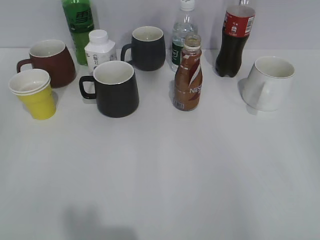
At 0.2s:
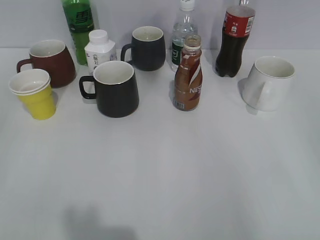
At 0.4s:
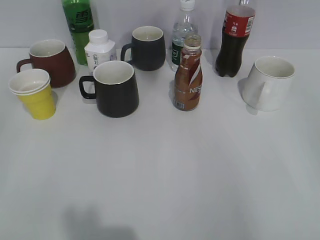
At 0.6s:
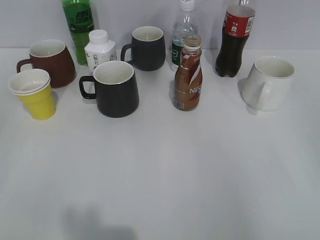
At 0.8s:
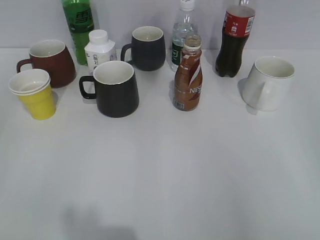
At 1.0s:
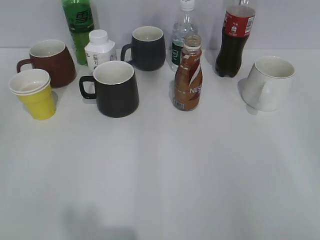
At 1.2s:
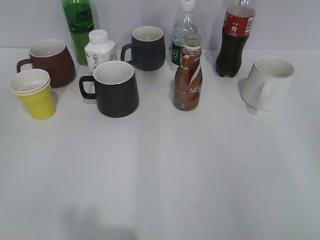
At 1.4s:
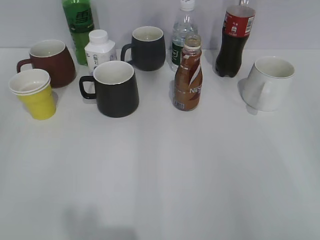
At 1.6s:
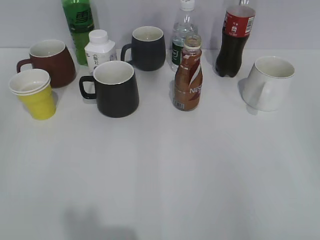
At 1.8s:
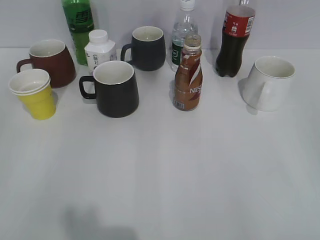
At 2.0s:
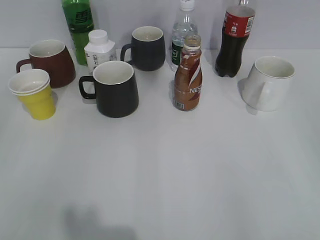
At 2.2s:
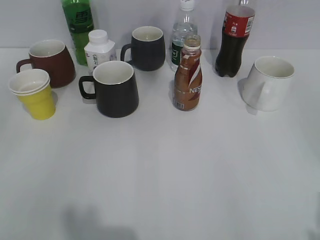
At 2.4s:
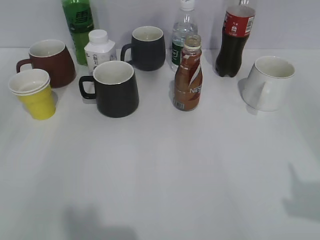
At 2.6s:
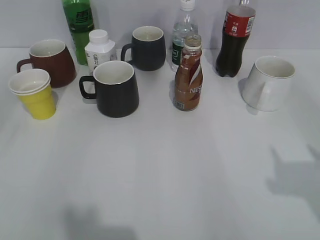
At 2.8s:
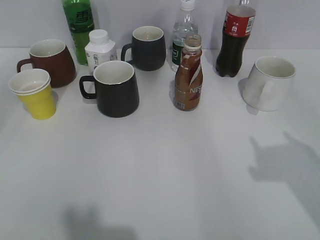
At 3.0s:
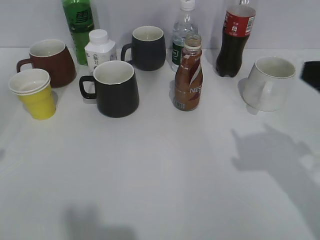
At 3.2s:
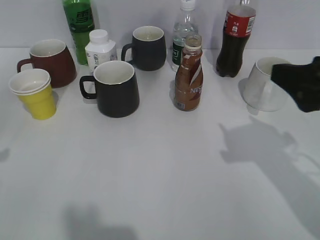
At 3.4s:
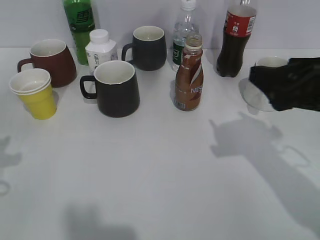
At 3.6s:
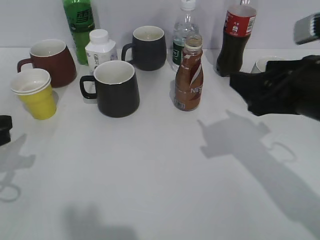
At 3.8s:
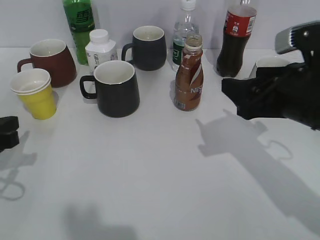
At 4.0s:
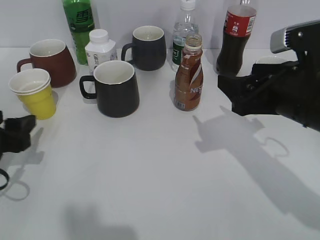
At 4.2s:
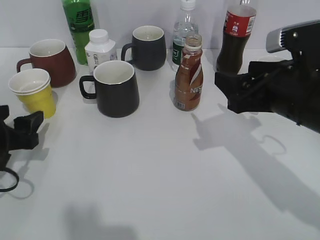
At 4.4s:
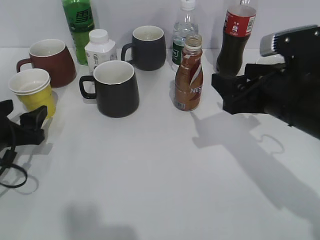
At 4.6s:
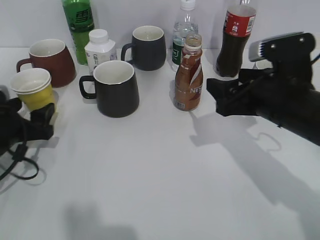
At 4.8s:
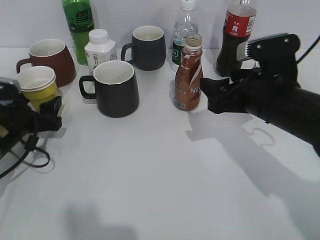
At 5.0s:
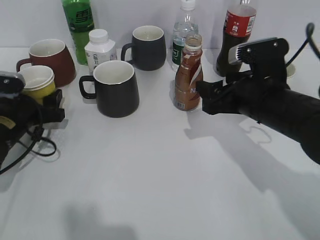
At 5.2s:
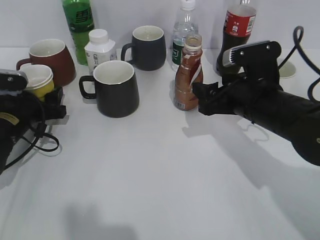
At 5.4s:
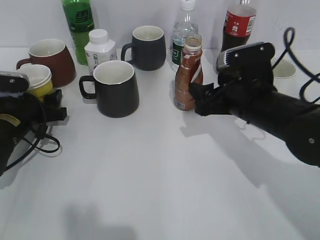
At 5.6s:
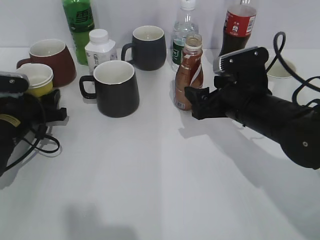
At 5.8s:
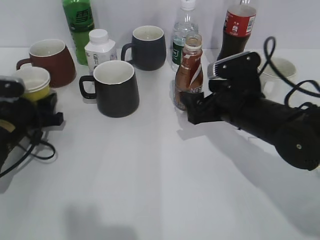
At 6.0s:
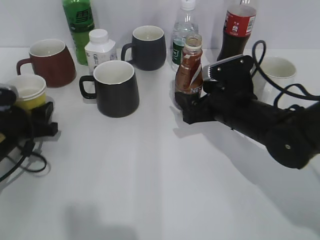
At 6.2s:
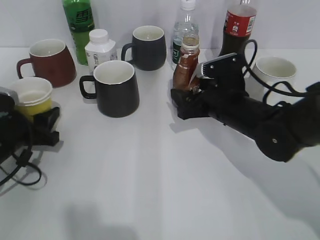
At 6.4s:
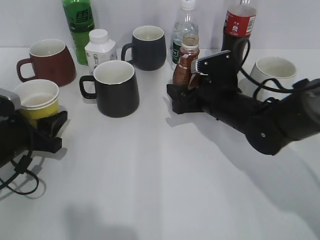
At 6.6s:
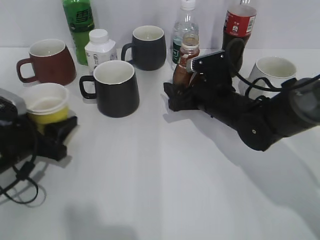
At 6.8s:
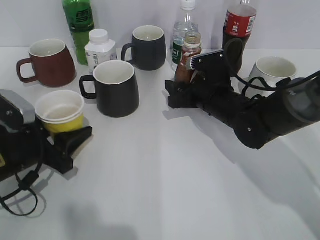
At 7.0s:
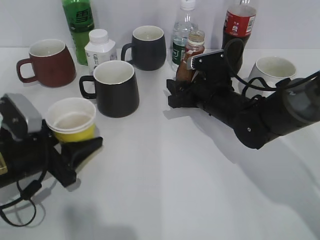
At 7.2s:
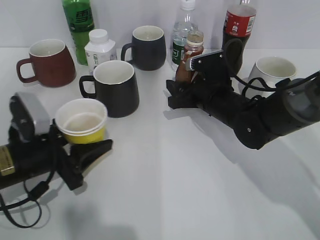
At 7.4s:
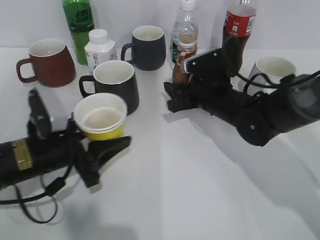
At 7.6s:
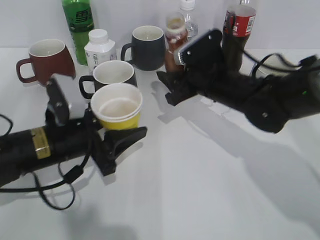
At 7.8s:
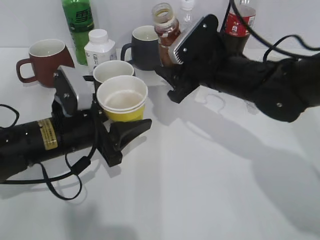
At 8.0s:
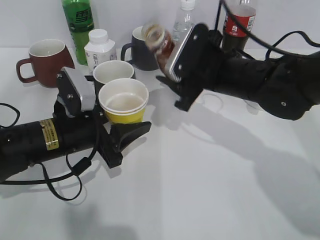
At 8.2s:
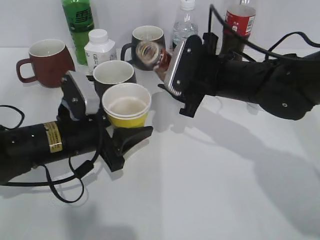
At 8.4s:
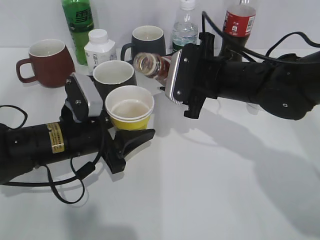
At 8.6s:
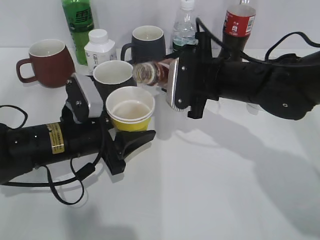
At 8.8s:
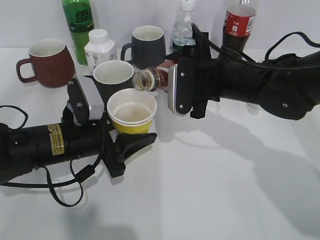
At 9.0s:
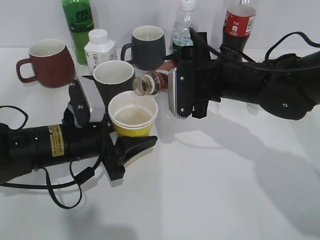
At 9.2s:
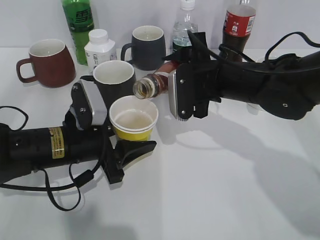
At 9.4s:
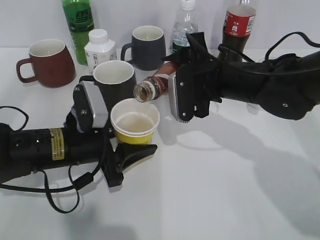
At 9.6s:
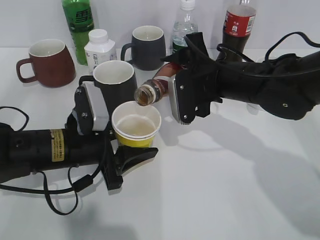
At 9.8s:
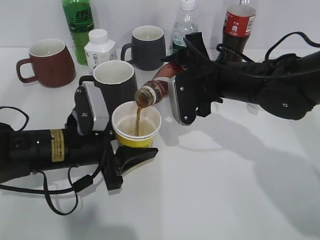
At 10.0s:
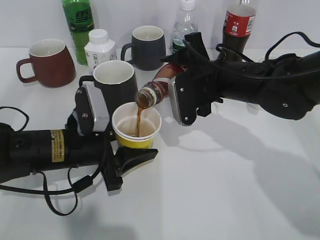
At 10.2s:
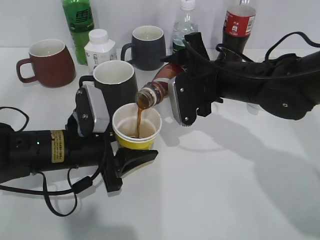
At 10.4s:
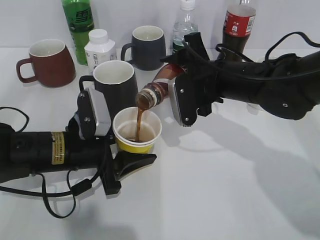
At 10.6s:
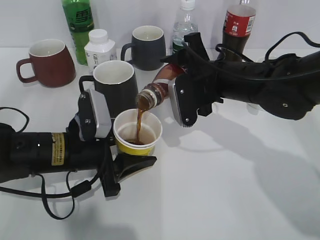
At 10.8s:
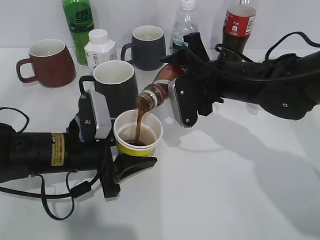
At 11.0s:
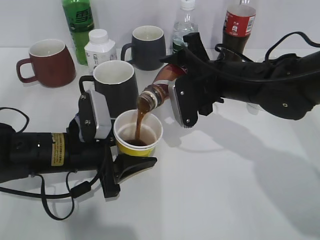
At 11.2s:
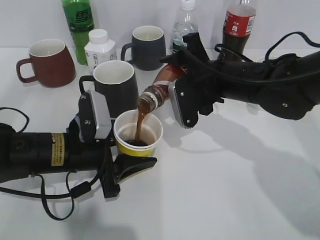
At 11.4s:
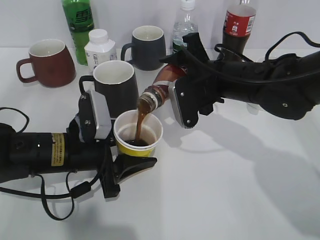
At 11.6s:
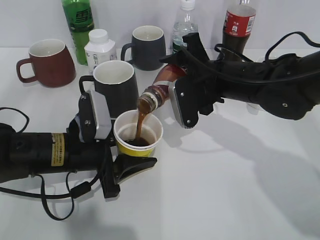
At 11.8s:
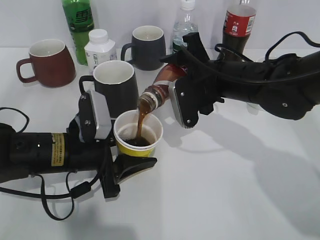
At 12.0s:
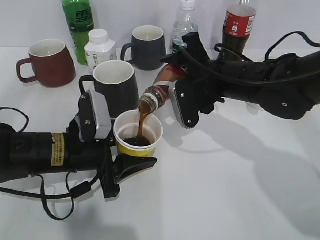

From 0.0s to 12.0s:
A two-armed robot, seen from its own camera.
Step, from 1.6s to 5.6s: Grasp the yellow paper cup with left gripper.
Step, from 5.8s to 6.8s: Grasp the bottle with coffee with right gripper.
From 1.6s to 3.0s: The right gripper moves forward and to the left, approximately 15 cm.
From 3.0s to 4.4s: The right gripper travels forward, downward and to the left by approximately 15 cm. Meanwhile the left gripper shifts about 15 cm downward, forward and to the right, and opens up.
From 4.4s to 6.0s: The left gripper closes up; the right gripper goes roughly 10 cm downward and forward.
From 6.0s to 7.6s: The right gripper shifts by roughly 5 cm, and closes its fingers; the left gripper shifts some 10 cm to the right.
From 9.0s to 12.0s: The grippers make only small movements.

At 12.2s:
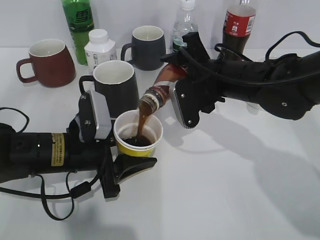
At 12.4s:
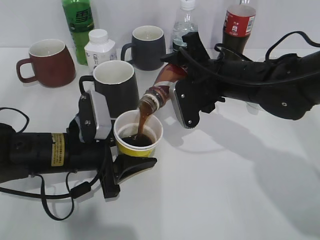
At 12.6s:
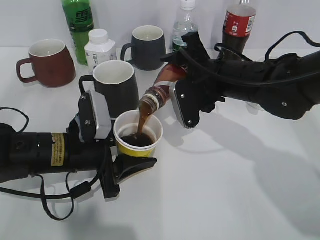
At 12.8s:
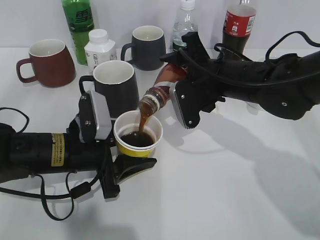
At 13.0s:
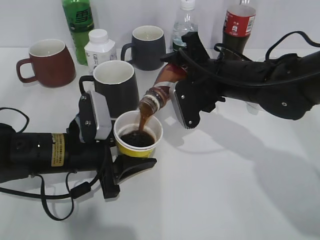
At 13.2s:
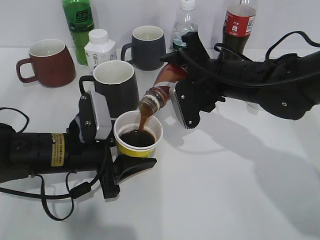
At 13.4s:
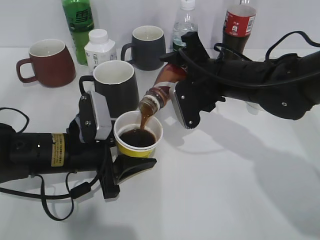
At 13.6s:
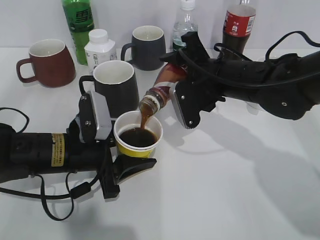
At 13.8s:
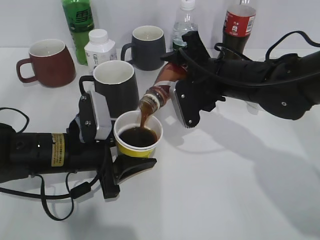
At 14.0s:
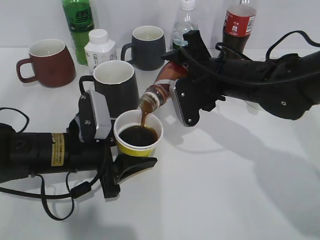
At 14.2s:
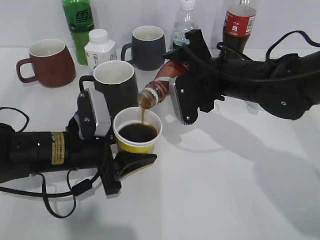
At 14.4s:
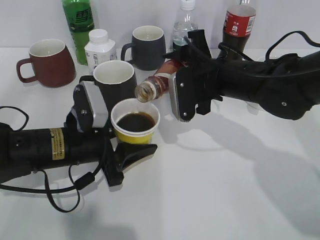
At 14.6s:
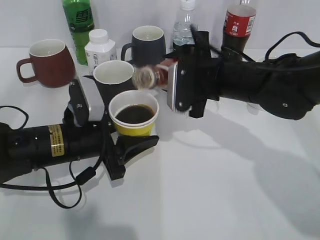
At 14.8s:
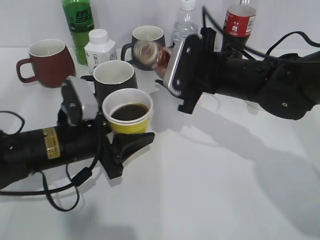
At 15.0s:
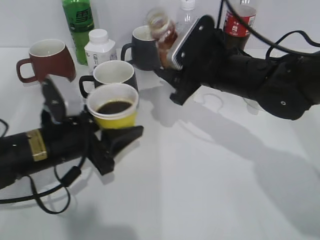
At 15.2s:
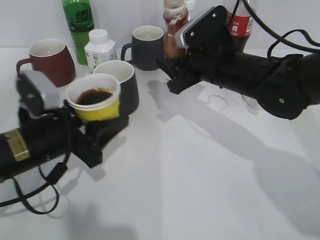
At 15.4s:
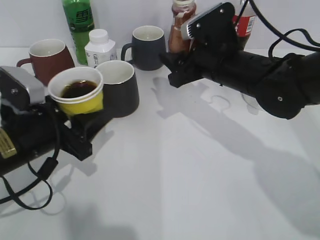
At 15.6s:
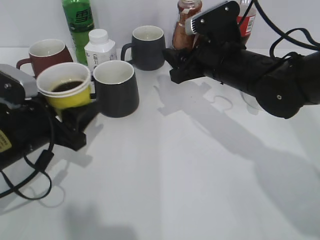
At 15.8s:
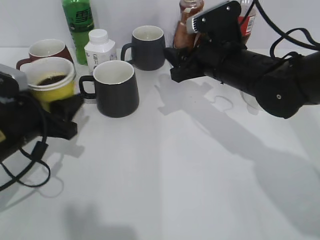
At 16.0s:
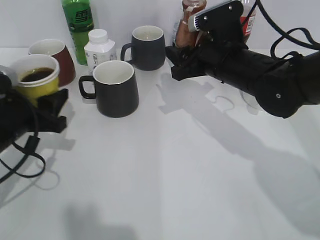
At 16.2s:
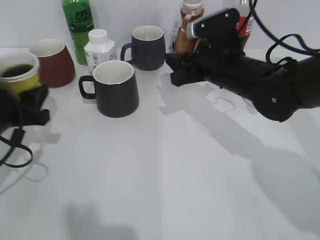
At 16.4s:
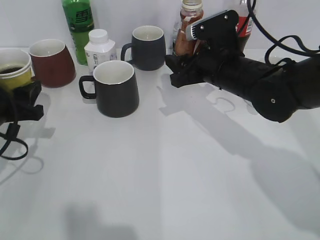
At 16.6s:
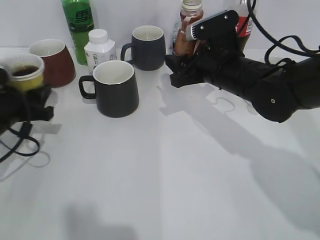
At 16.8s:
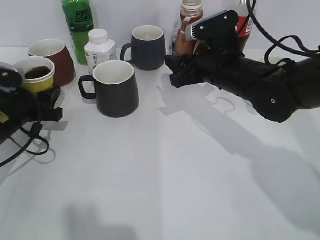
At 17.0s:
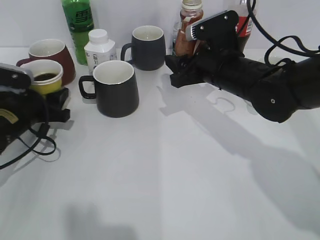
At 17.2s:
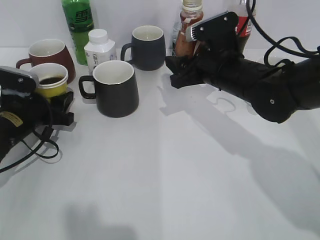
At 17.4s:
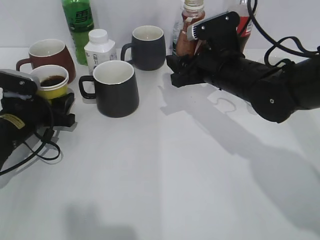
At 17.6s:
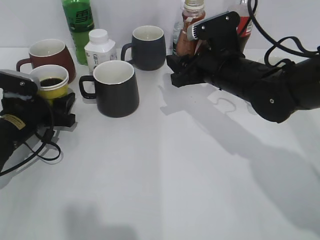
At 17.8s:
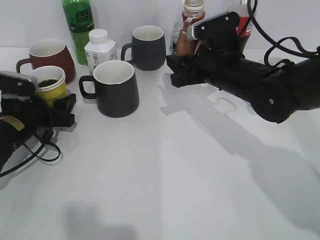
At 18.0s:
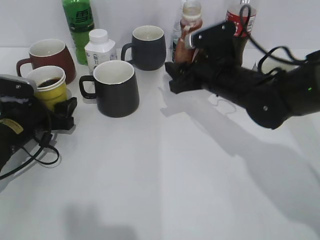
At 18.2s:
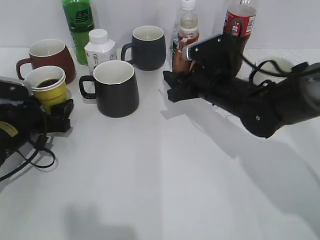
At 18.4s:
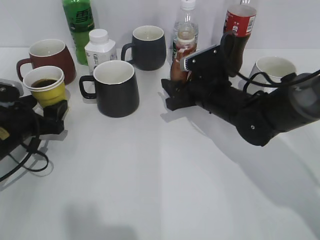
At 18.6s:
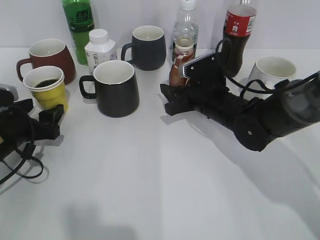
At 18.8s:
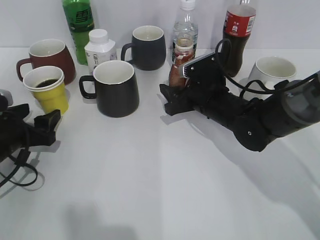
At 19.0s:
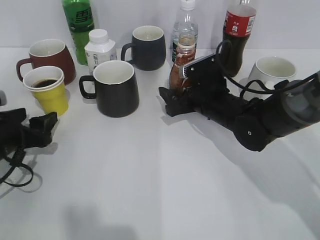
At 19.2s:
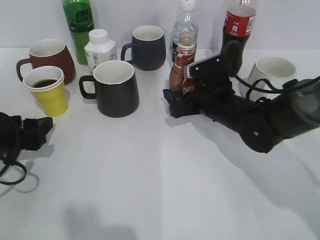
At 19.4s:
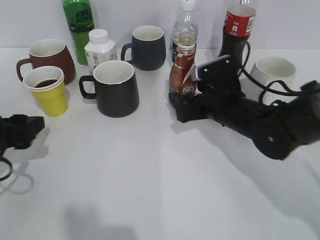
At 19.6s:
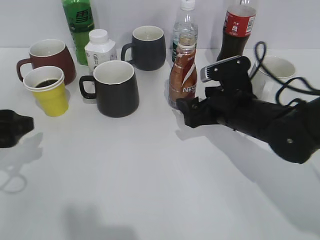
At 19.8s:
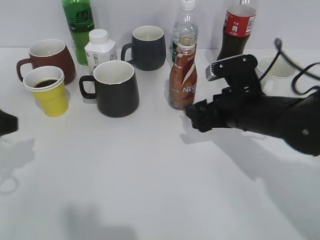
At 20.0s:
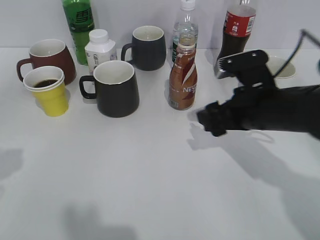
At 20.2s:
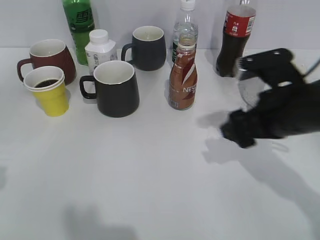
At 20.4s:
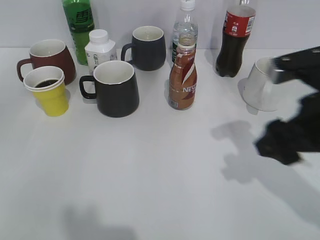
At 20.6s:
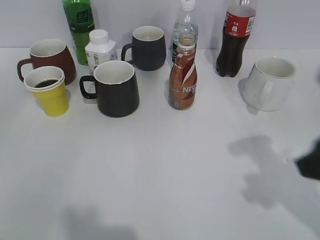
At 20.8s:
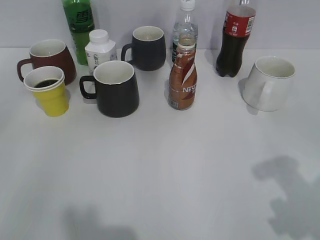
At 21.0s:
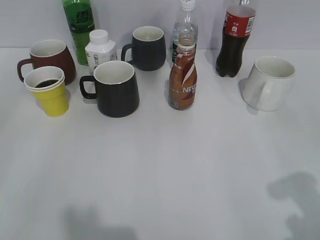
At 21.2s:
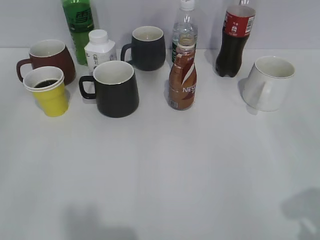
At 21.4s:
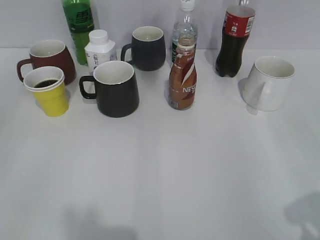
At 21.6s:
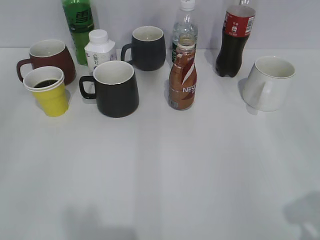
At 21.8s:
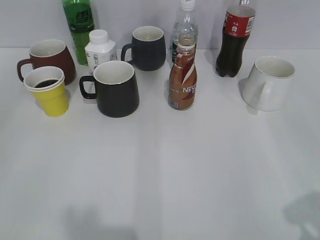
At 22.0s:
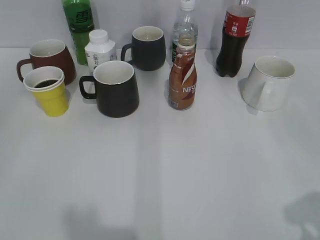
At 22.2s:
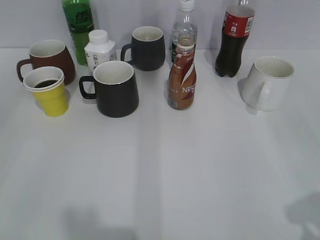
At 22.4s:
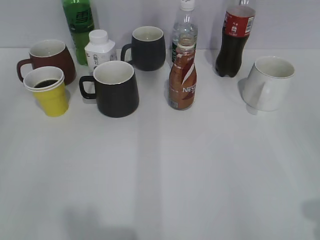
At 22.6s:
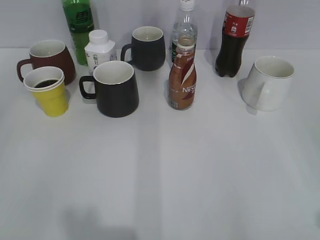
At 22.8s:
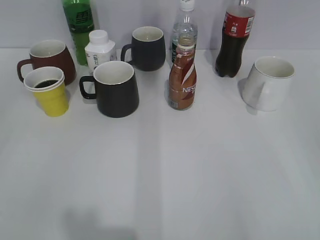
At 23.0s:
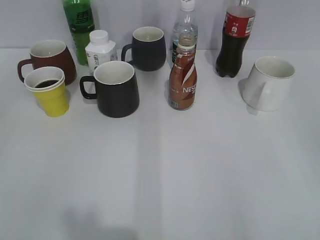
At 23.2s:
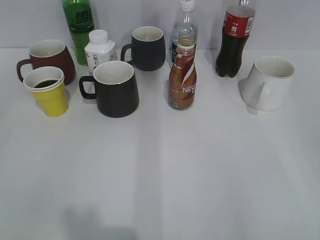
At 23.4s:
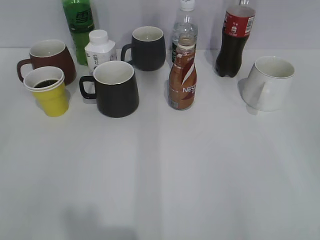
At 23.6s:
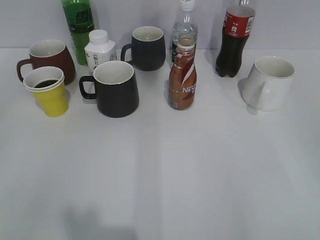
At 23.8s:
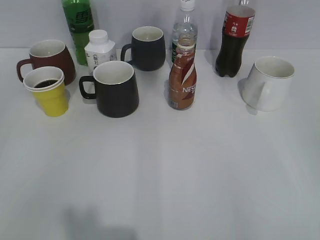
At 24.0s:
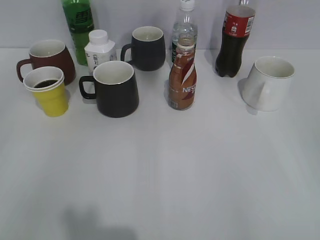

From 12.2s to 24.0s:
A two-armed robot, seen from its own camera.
Step, from 12.2s to 14.6s: Pour the coffee from bottle to cup with right gripper.
Step, from 14.8s to 17.8s: Place the yellow paper cup on the table with left gripper.
Step, from 18.0s to 19.6s: Place the coffee bottle on the table with right gripper.
From 12.2s to 13.6s: Both grippers stay about where they are.
From 15.2s to 16.6s: The left gripper goes approximately 10 cm to the left and forward.
From 16.6s to 18.2s: The left gripper moves roughly 5 cm, and opens its fingers.
From 18.2s to 19.6s: The left gripper moves backward and upward, roughly 10 cm, while the right gripper shifts by roughly 5 cm, and opens up.
From 19.6s to 21.0s: The right gripper shifts approximately 30 cm backward, upward and to the right, and closes up. The left gripper goes approximately 20 cm backward and upward.
From 21.0s to 22.6s: The right gripper shifts some 5 cm backward.
